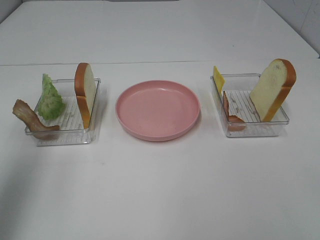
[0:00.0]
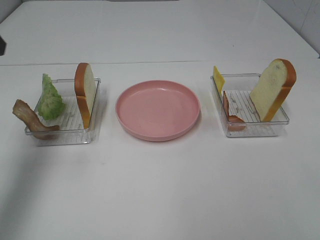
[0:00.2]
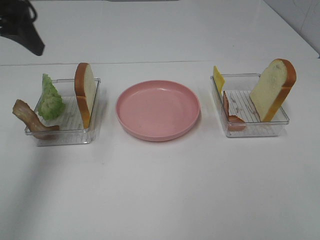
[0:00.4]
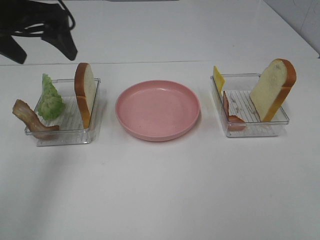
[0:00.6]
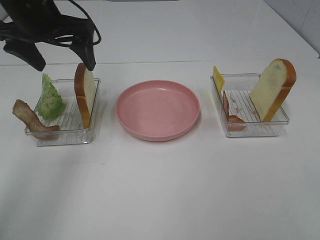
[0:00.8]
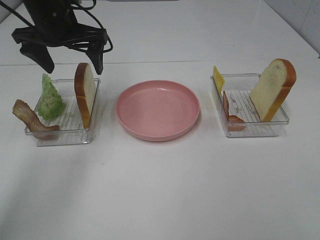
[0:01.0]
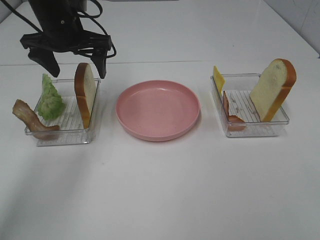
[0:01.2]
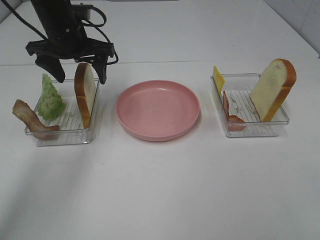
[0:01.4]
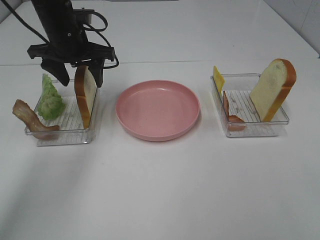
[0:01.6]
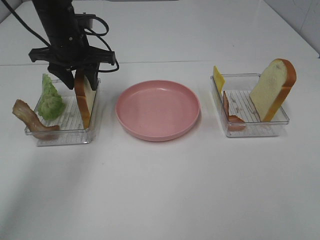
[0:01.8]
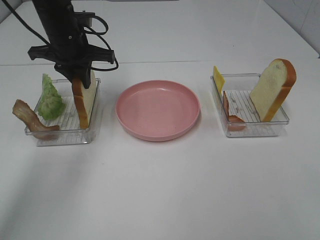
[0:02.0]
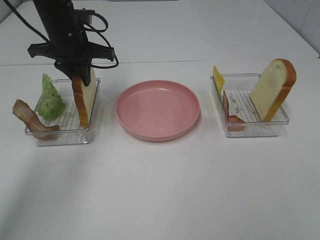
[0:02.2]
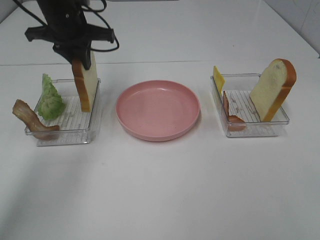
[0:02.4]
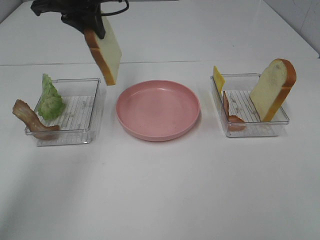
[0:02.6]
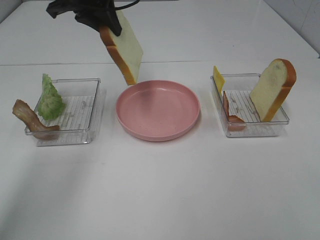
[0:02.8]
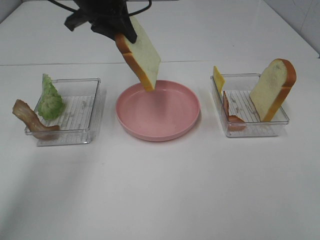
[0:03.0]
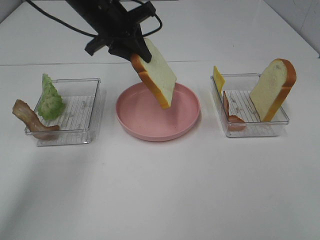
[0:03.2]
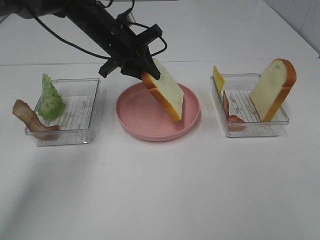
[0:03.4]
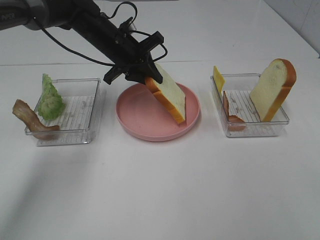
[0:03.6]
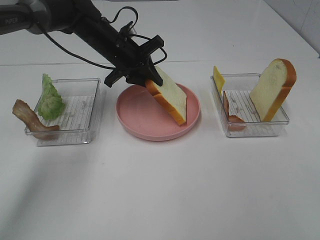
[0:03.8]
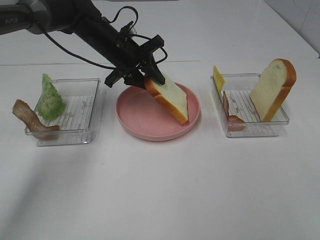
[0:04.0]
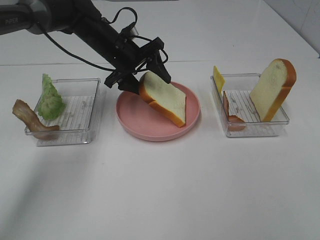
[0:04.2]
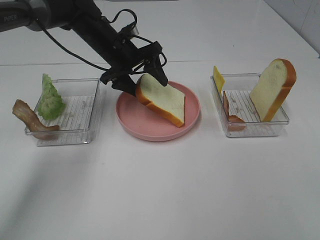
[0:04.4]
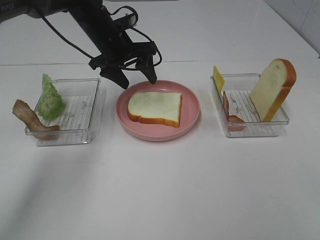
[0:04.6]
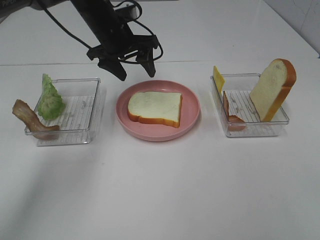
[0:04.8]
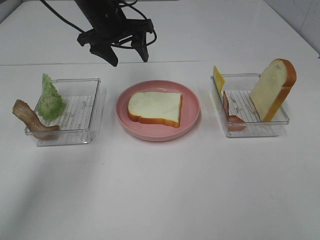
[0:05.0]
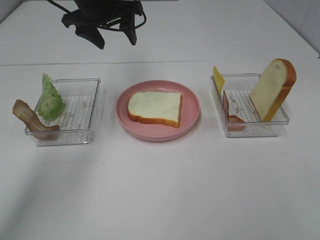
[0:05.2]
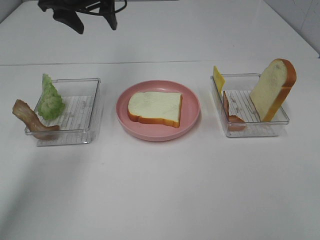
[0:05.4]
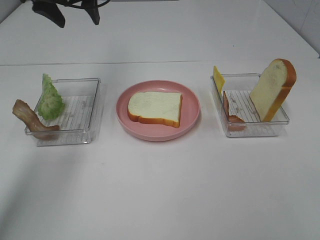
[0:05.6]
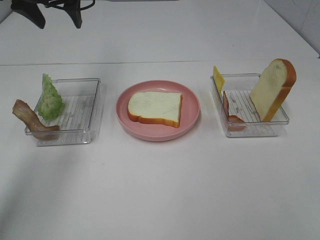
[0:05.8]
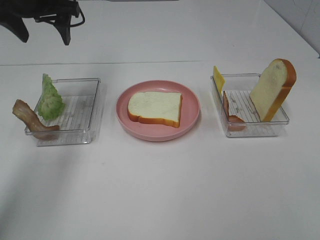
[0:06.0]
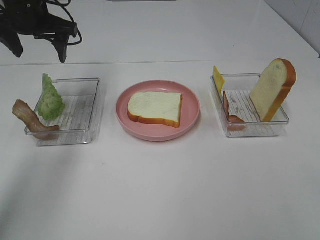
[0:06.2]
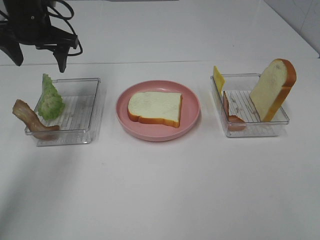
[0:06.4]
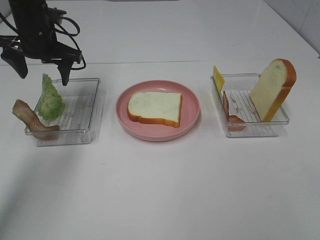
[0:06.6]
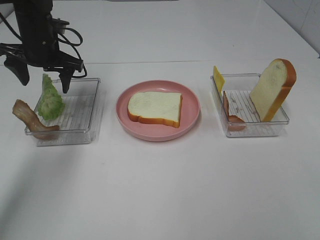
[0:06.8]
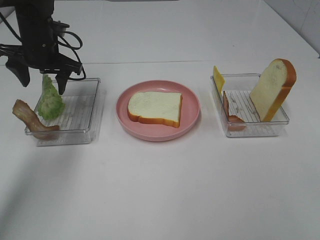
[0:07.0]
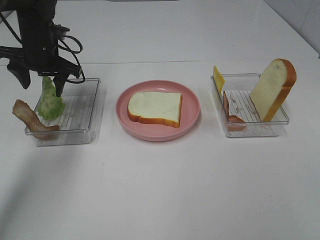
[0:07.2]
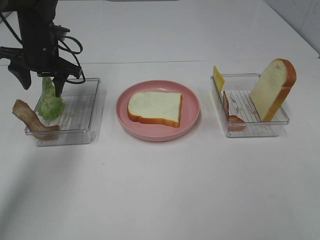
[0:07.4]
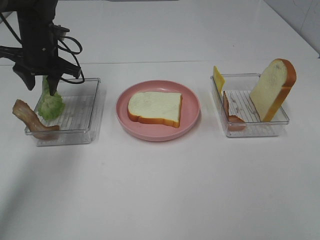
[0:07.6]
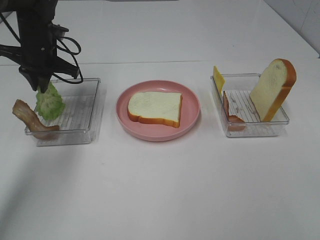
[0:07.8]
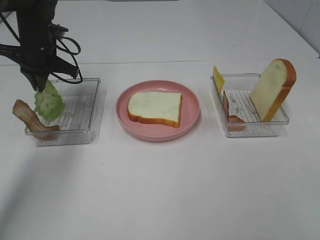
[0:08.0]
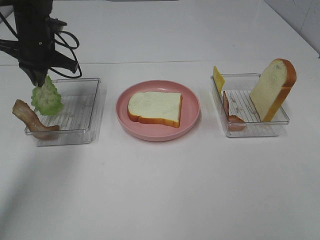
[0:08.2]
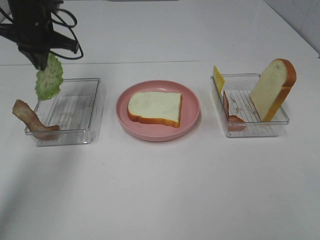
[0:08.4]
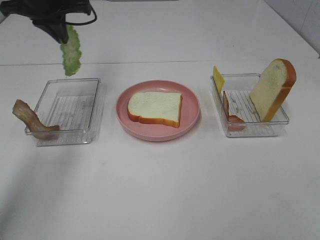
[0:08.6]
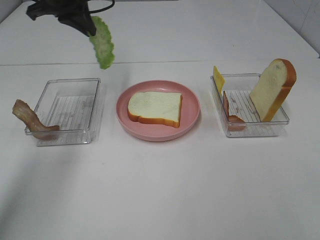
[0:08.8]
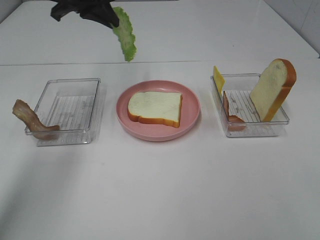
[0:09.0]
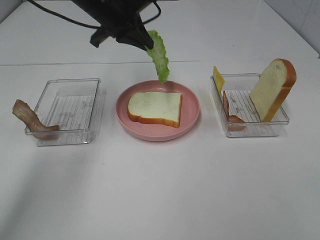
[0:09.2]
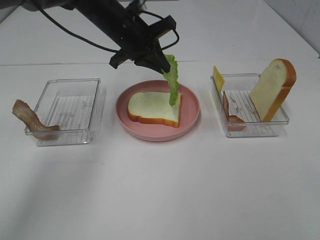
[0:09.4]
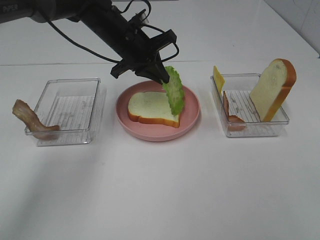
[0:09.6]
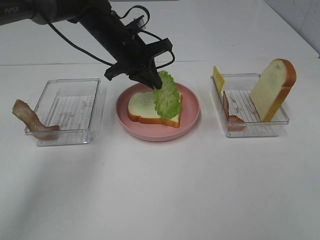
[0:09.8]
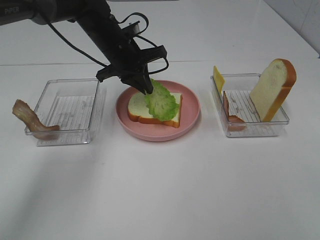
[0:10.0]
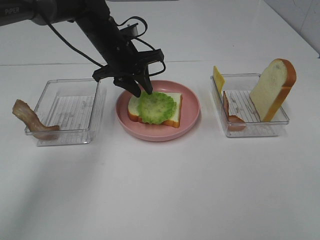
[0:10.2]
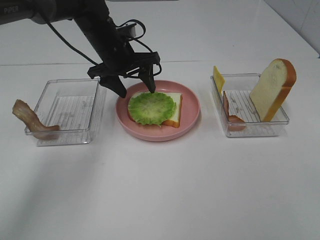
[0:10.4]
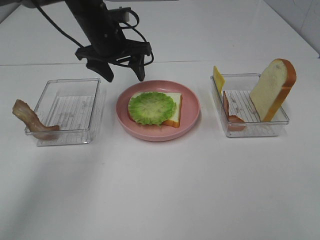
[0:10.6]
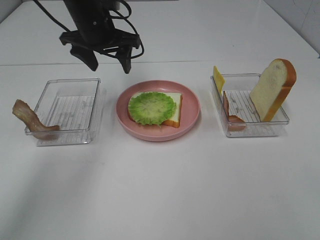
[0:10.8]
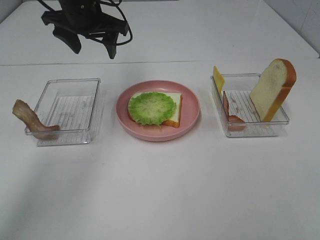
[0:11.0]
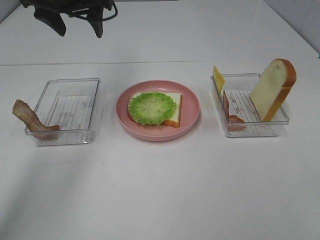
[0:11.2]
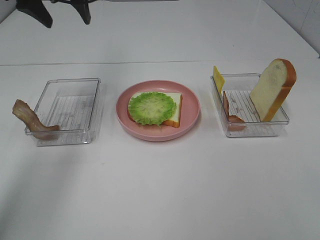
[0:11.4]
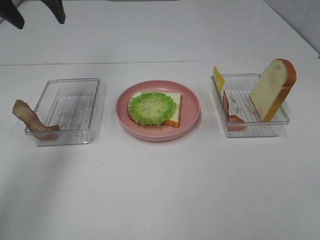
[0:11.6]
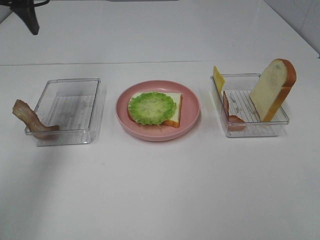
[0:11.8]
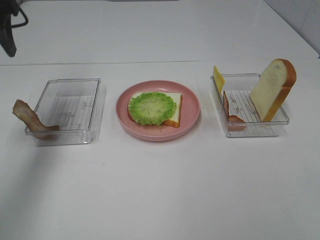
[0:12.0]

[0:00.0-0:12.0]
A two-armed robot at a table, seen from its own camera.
Task of the whole recording: Make sandwiches.
Step, 0:00.0 to 0:02.0: Left hand:grab the bread slice.
Step, 0:02.2 to 0:04.8: Left hand:place the bread slice on the plate.
Step, 0:05.0 to 0:08.2: Left hand:grab the lettuce slice.
Step, 0:08.4 to 0:10.2: Left hand:place the lettuce slice on the bread slice.
0:00.0 to 0:01.6: The left gripper heads forward, downward and to the right, covering roughly 30 cm.
0:01.6 to 0:03.0: The left gripper goes some 5 cm upward, and closes up.
0:03.0 to 0:04.4: The left gripper shifts some 10 cm downward, and opens.
0:04.4 to 0:06.0: The left gripper shifts some 15 cm upward and to the left.
0:06.0 to 0:07.6: The left gripper moves downward, about 10 cm.
0:07.6 to 0:09.0: The left gripper heads upward and to the right, covering approximately 15 cm, and closes up.
0:09.0 to 0:10.4: The left gripper is displaced downward and to the right by some 15 cm, and opens its fingers.
0:10.4 to 0:12.0: The left gripper heads to the left, upward and backward, covering approximately 25 cm.

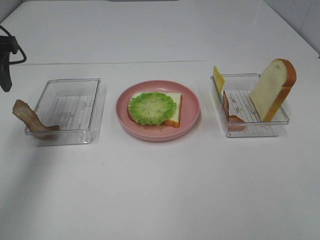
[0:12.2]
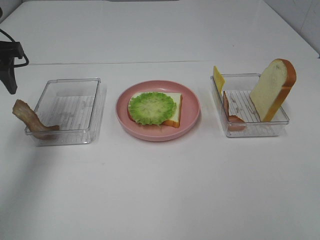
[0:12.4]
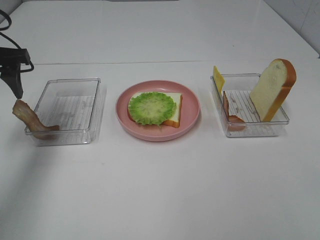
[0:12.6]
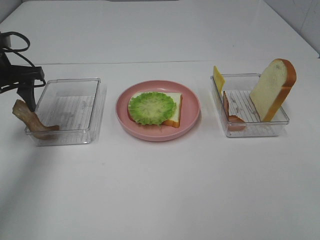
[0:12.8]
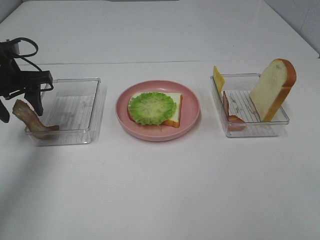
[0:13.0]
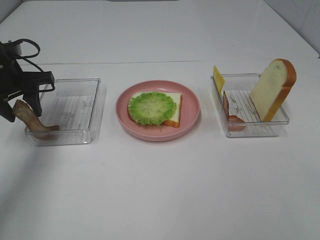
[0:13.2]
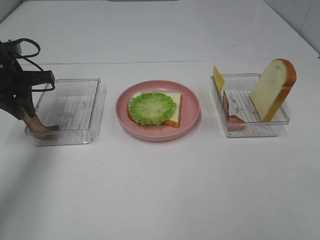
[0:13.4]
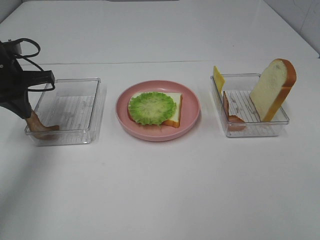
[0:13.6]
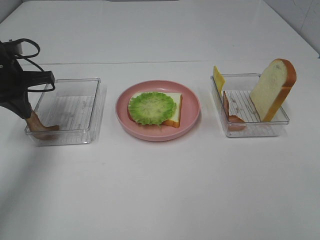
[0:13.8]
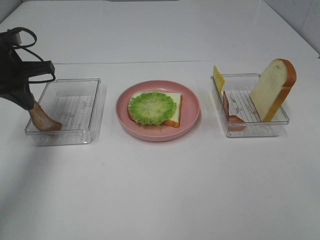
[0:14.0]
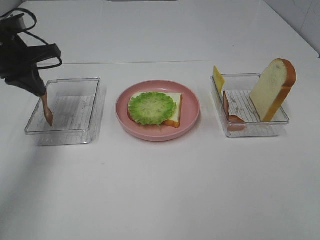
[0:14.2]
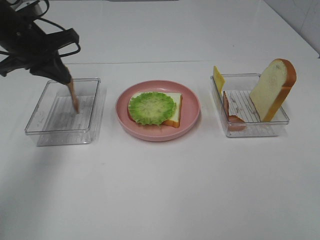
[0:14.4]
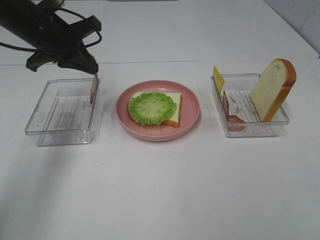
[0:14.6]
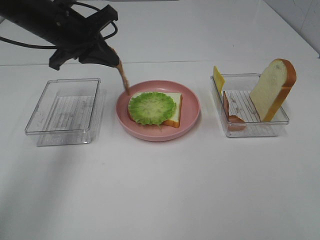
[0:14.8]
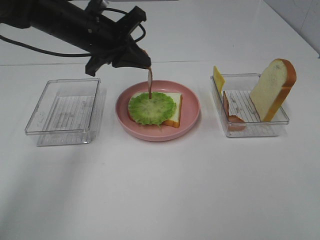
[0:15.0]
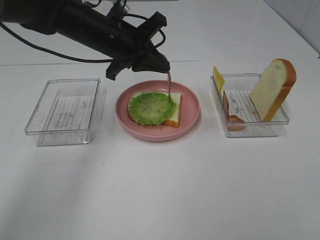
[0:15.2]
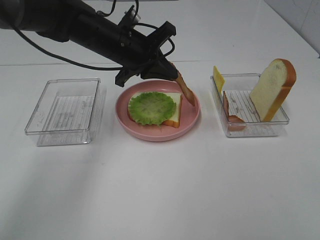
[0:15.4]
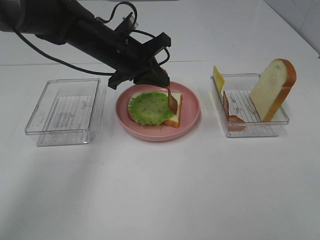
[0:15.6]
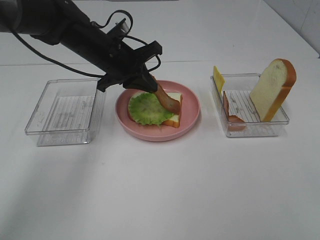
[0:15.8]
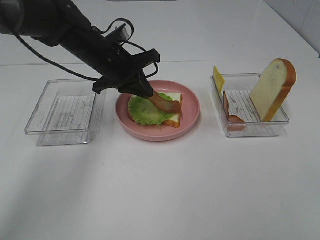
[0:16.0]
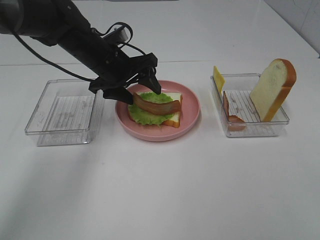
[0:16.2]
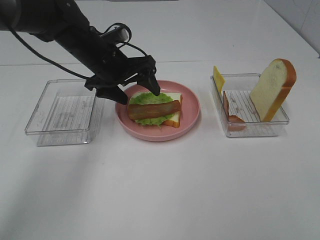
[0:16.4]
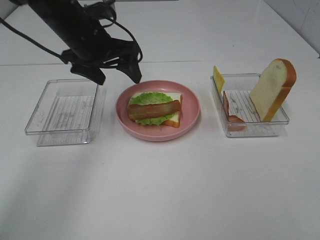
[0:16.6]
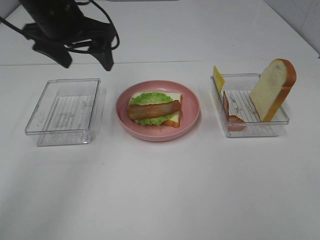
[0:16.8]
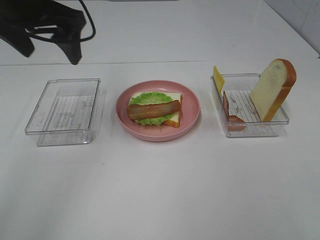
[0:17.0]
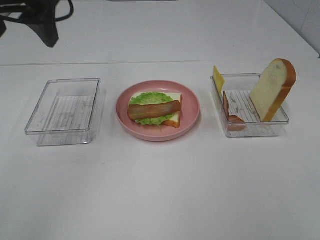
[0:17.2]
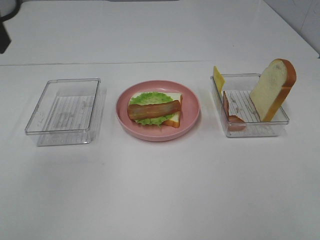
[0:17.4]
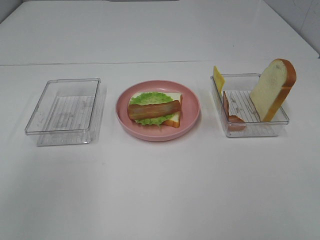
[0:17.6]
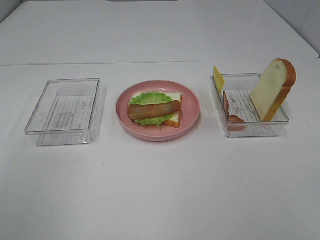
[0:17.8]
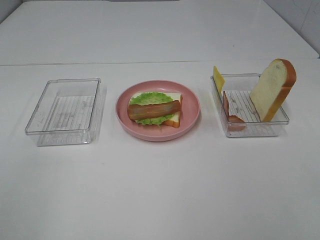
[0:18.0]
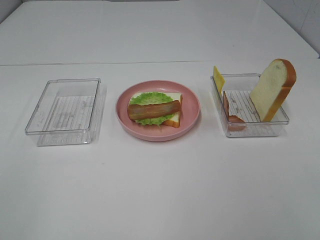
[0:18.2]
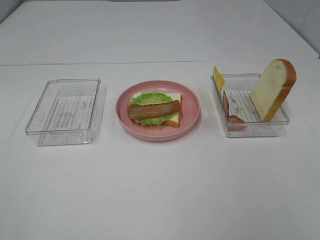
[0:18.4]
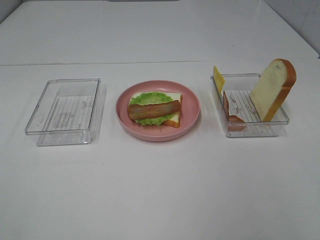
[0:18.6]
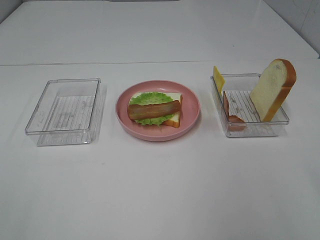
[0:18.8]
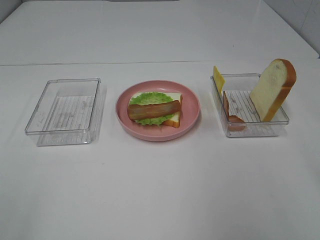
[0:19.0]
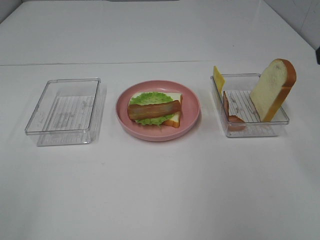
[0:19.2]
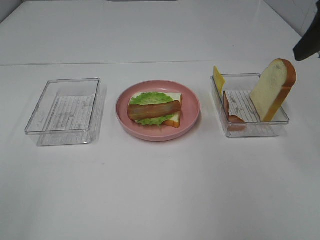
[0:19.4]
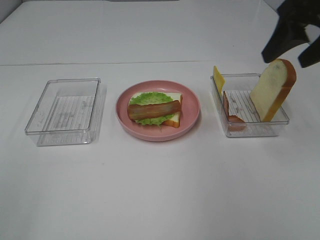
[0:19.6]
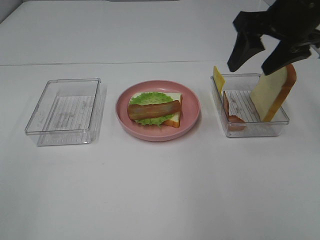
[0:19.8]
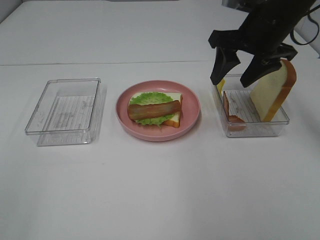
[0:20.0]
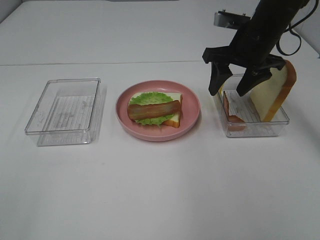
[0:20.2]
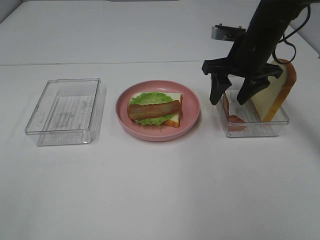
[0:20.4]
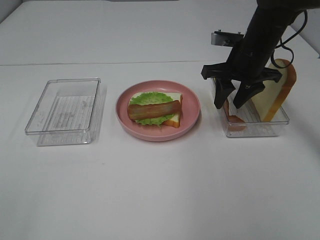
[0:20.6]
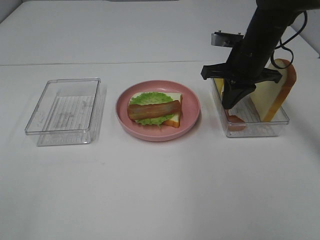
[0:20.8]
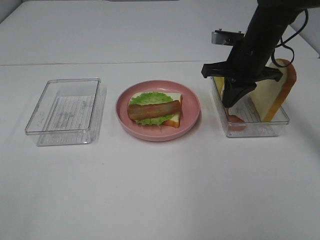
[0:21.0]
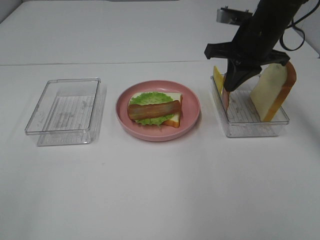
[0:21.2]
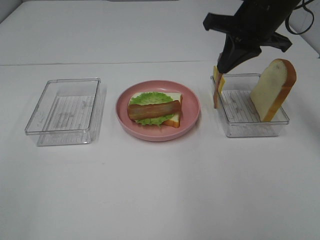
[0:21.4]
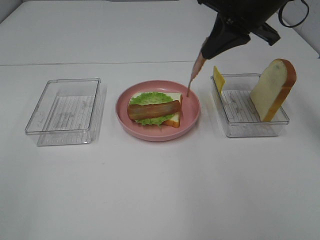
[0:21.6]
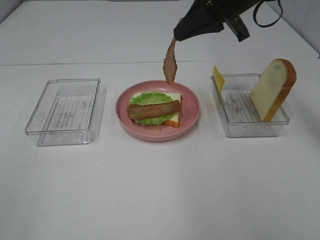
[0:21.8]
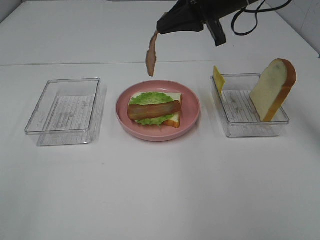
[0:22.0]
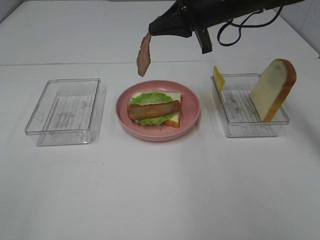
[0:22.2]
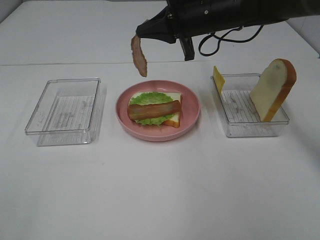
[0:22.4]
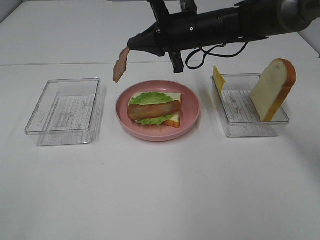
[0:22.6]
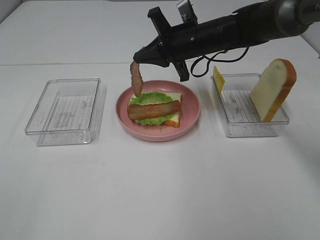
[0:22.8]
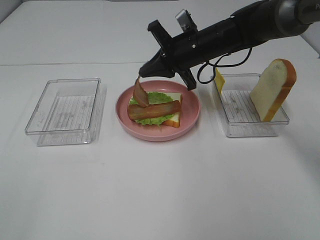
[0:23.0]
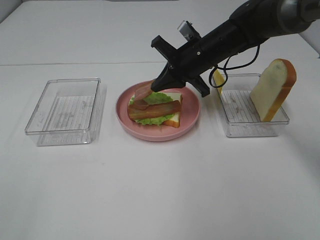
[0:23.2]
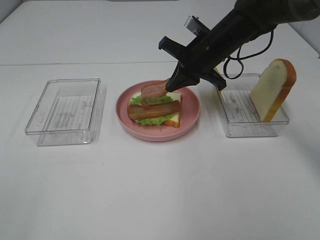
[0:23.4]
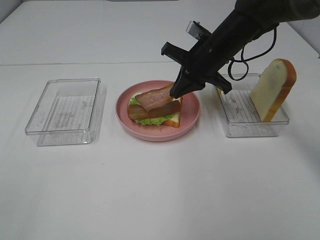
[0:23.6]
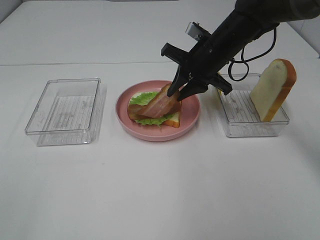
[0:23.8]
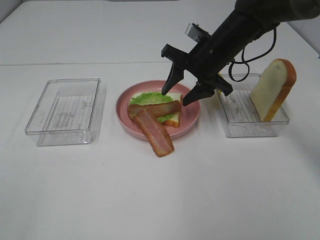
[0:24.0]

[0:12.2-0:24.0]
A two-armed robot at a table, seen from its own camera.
Task of the whole recording: Make sandwiches.
Step, 0:13.8 to 0:16.4: Left hand:place bacon on lettuce slice.
Step, 0:16.6 to 0:21.0: Right hand:grab the bacon.
0:12.2 to 0:13.6: The left gripper travels downward by some 10 cm, and closes its fingers.
0:13.6 to 0:15.2: The left gripper is displaced to the right by about 20 cm.
0:15.2 to 0:16.6: The left gripper opens up.
0:16.6 to 0:18.2: The left gripper heads backward and to the left, covering roughly 40 cm.
0:18.2 to 0:19.6: The right gripper travels forward by roughly 30 cm.
0:19.6 to 0:21.0: The right gripper shifts some 15 cm downward, forward and to the left, and closes up.
0:21.0 to 0:22.6: The right gripper travels to the left by approximately 10 cm, and goes upward and returns, about 10 cm each way.
0:22.6 to 0:24.0: The right gripper opens its fingers.
